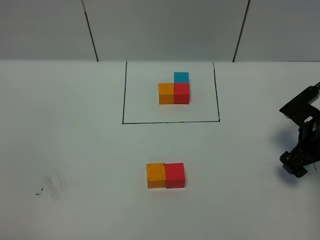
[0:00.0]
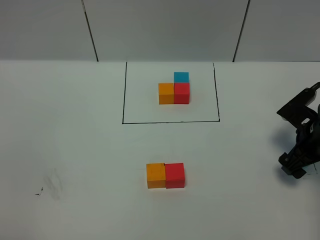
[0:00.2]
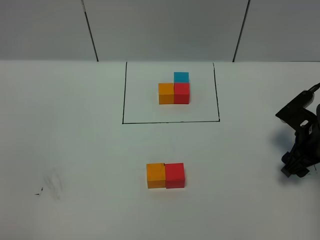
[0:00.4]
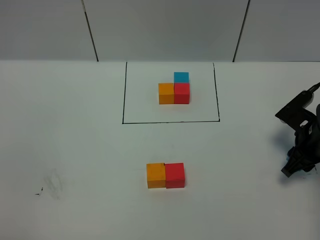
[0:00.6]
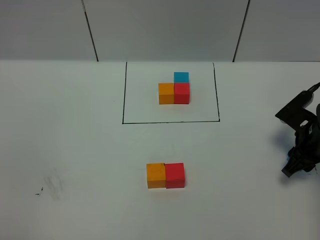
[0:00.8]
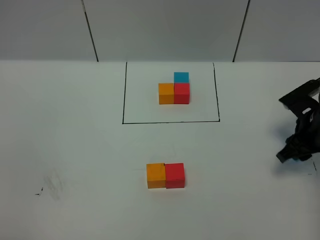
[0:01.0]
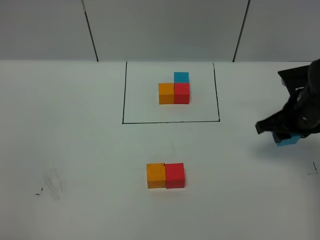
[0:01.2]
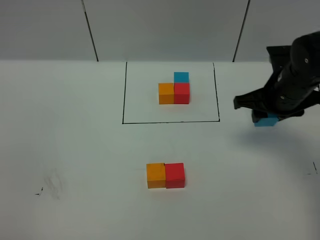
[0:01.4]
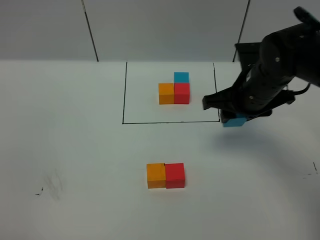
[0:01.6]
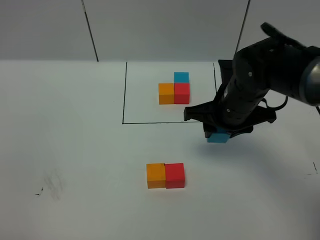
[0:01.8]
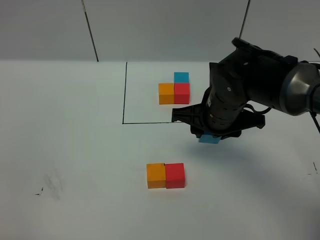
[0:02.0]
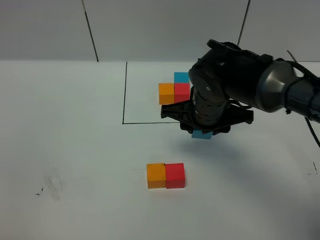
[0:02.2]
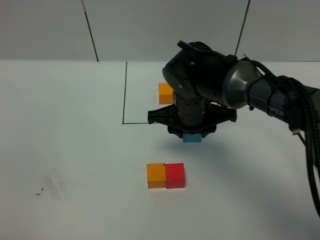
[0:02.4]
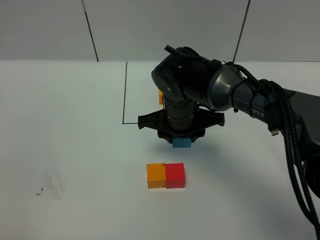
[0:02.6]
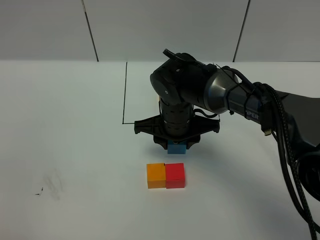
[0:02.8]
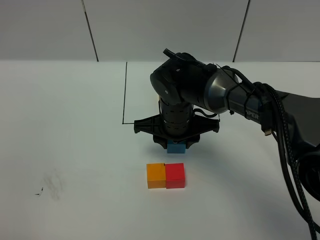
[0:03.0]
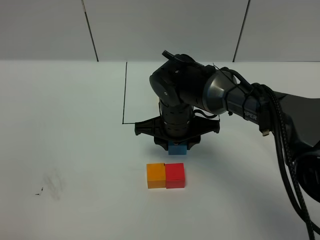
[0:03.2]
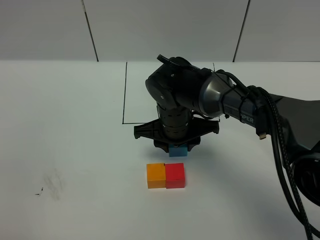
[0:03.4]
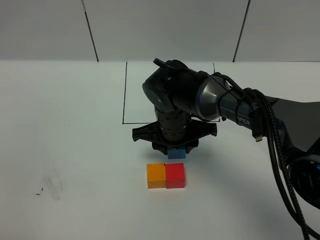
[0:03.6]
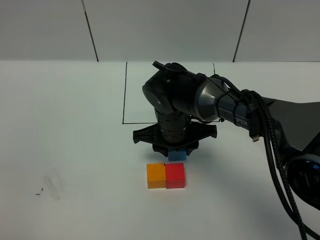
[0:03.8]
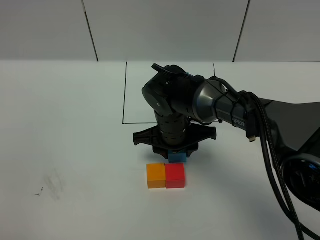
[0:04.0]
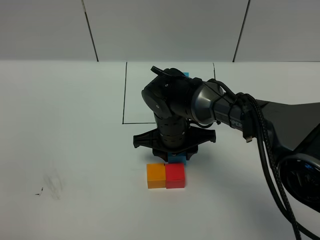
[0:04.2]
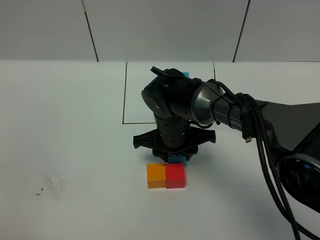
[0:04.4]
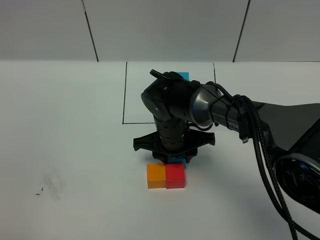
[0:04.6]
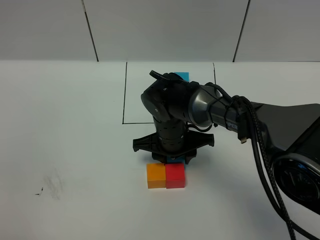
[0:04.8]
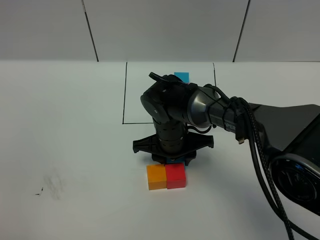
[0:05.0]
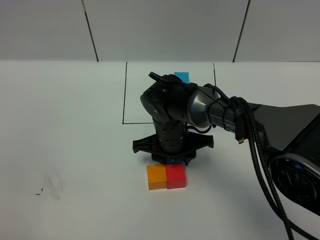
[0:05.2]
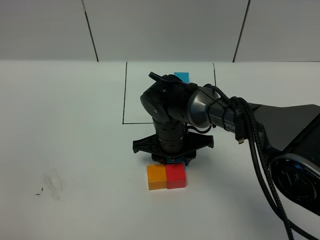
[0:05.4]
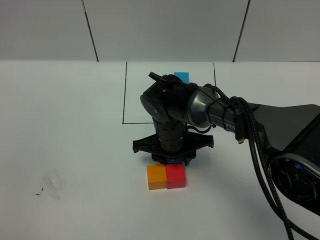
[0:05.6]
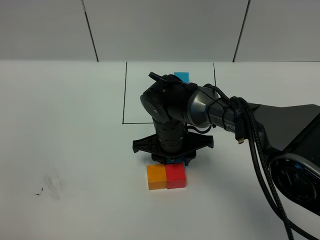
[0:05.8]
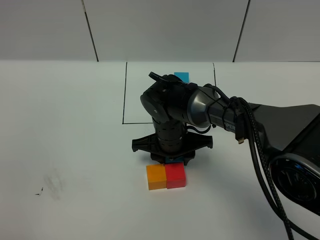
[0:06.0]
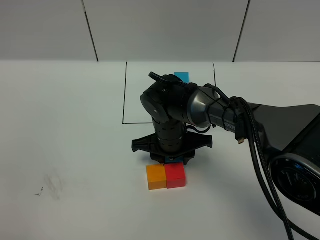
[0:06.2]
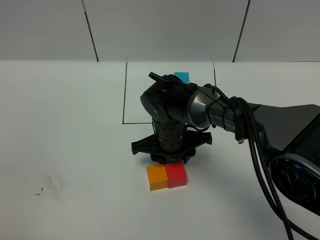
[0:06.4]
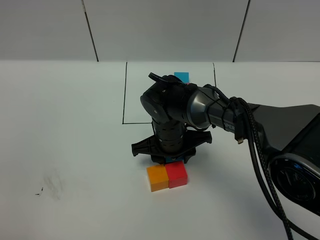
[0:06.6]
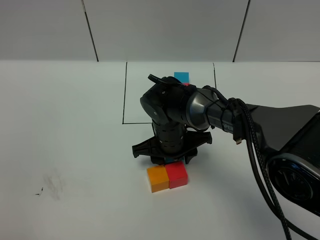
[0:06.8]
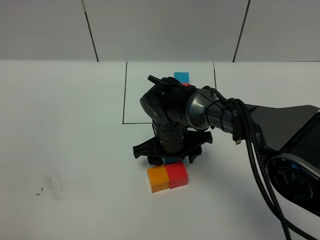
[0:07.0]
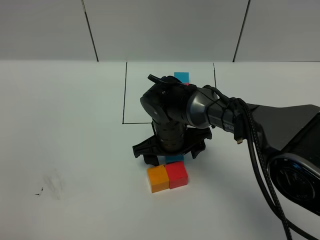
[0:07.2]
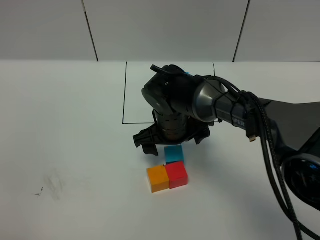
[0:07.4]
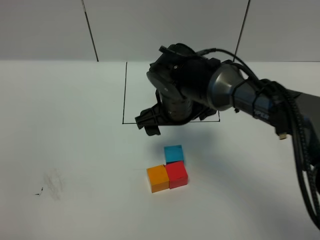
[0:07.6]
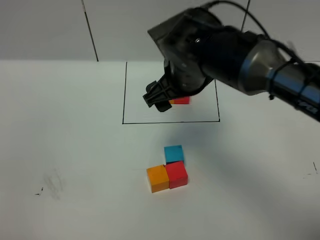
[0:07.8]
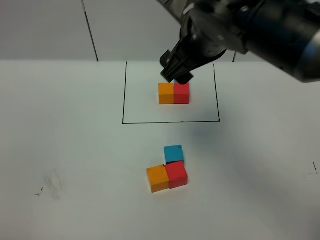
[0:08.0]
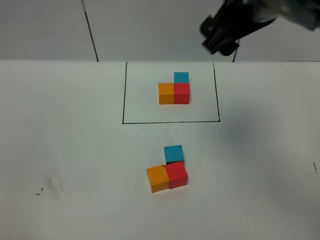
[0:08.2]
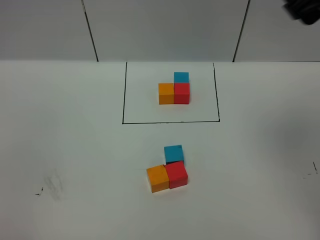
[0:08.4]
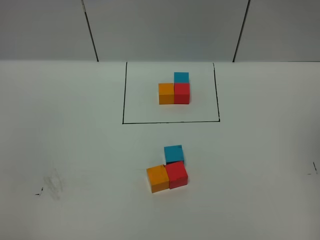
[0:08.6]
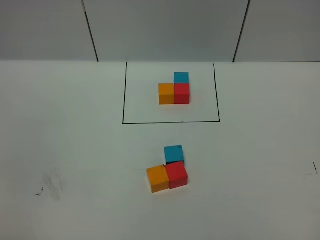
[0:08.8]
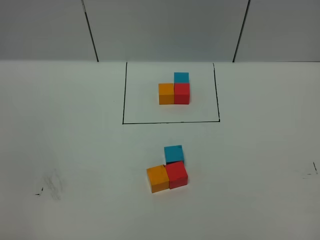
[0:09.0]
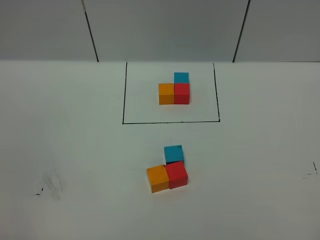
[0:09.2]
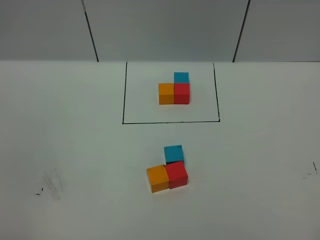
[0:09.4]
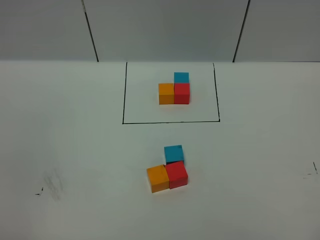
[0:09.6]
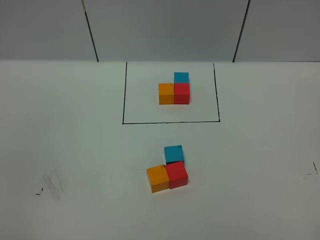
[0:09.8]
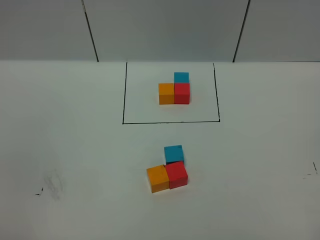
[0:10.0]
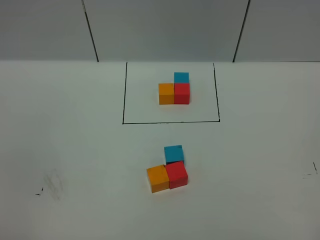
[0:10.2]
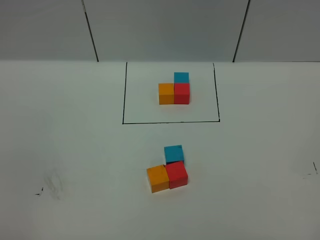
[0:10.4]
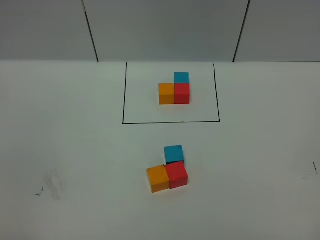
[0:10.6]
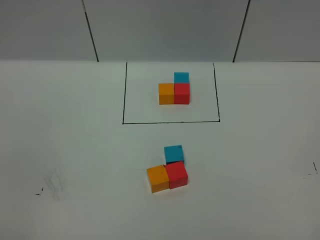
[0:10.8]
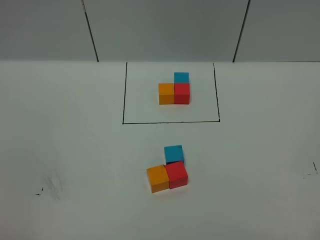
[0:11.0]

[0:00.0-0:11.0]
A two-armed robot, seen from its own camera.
Task of the whole recording: According to the building block template in front, assemble the scattered blocks together.
Step, 0:00.0 to 0:07.8: Put the blue cube in the front of the red cube.
0:00.0 to 0:01.6: The right gripper is displaced to the left and upward by some 15 cm, and closes up.
0:01.6 to 0:03.2: The right gripper heads to the left and downward, covering approximately 15 cm.
0:03.2 to 0:04.8: There are only small adjustments of the grippers.
0:04.8 to 0:06.2: Both grippers stay about where they are.
0:06.2 to 0:07.8: The right gripper shifts approximately 15 cm upward, and opens.
0:07.8 to 0:09.4: The right gripper heads backward and to the right, covering roughly 50 cm, and closes its fingers.

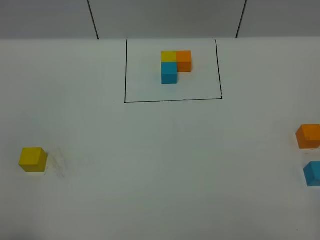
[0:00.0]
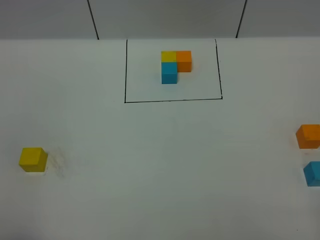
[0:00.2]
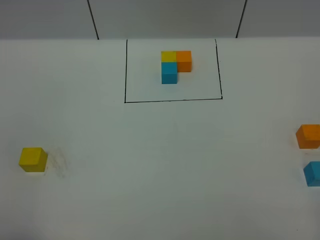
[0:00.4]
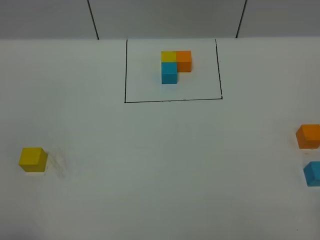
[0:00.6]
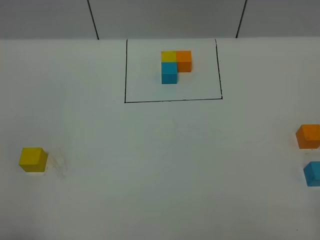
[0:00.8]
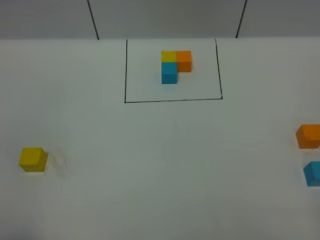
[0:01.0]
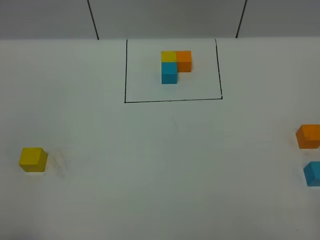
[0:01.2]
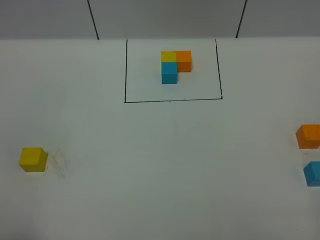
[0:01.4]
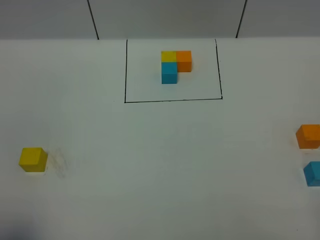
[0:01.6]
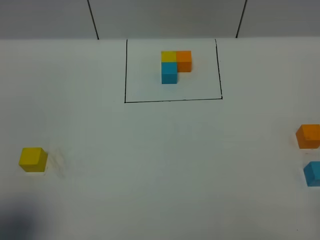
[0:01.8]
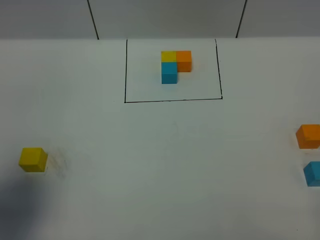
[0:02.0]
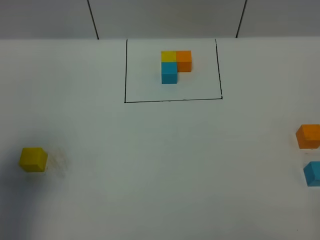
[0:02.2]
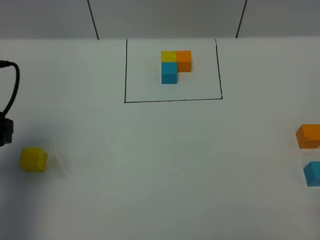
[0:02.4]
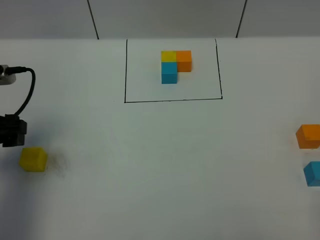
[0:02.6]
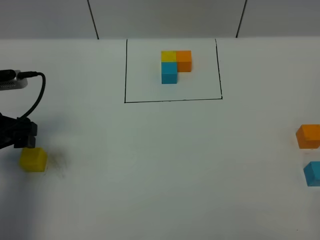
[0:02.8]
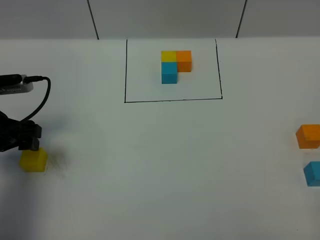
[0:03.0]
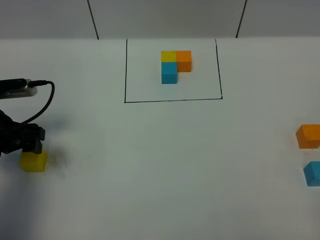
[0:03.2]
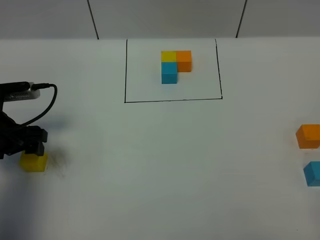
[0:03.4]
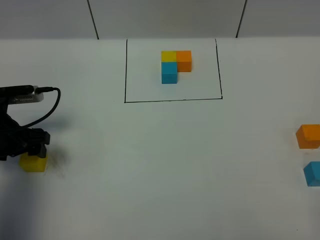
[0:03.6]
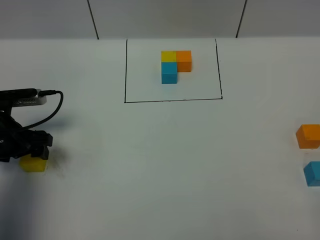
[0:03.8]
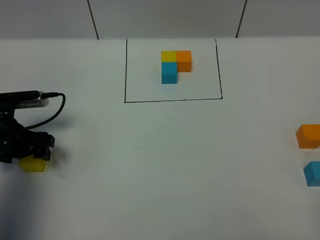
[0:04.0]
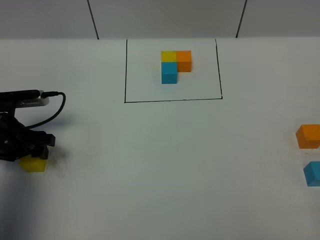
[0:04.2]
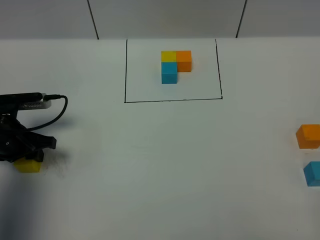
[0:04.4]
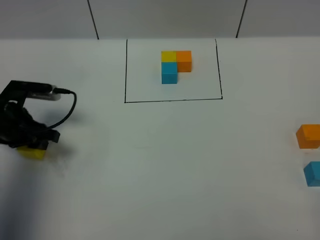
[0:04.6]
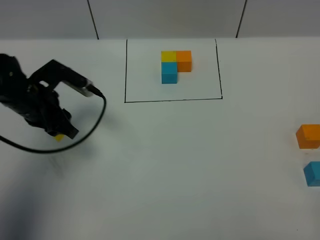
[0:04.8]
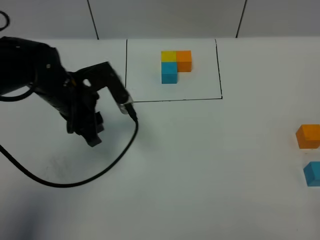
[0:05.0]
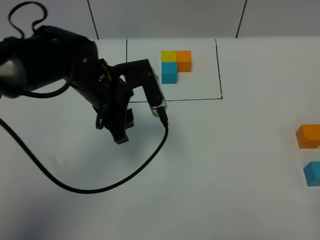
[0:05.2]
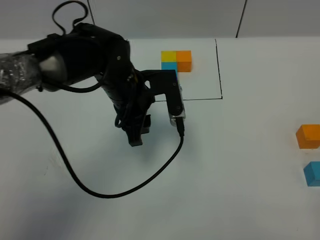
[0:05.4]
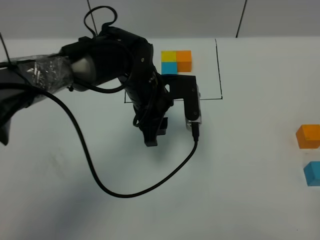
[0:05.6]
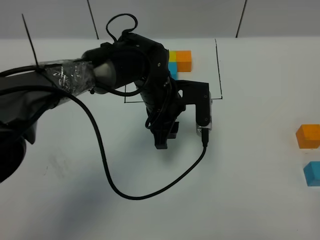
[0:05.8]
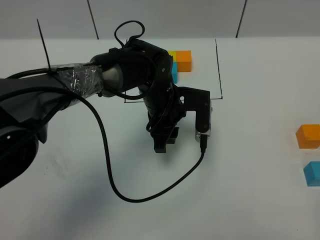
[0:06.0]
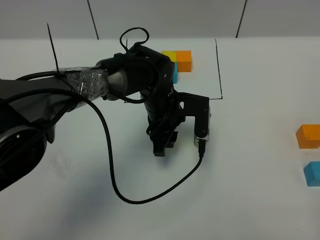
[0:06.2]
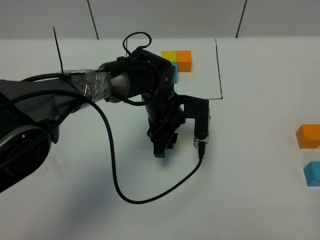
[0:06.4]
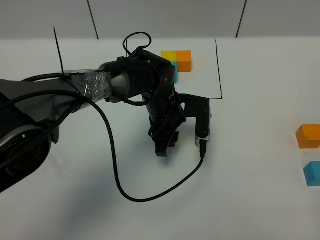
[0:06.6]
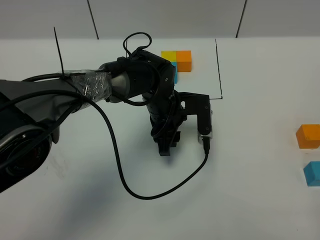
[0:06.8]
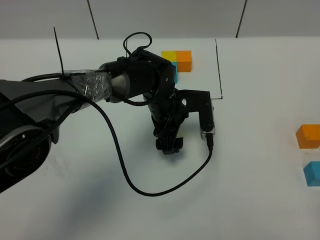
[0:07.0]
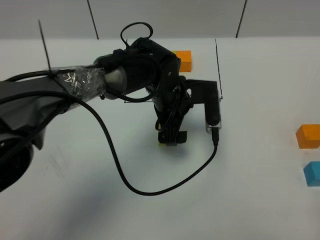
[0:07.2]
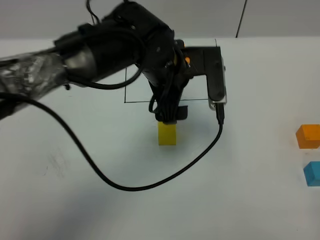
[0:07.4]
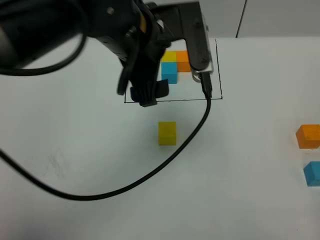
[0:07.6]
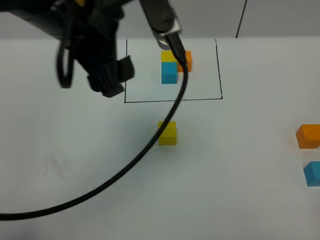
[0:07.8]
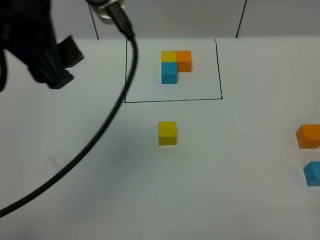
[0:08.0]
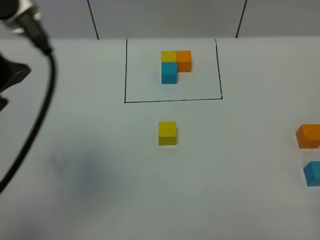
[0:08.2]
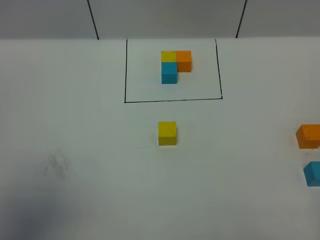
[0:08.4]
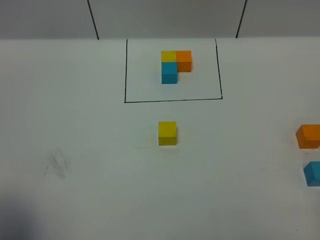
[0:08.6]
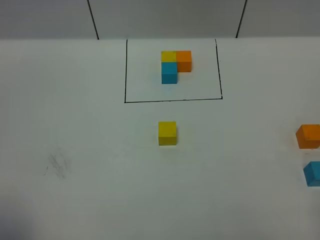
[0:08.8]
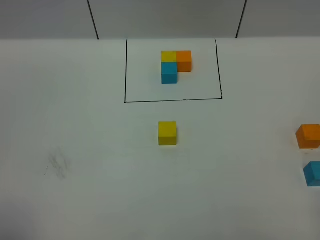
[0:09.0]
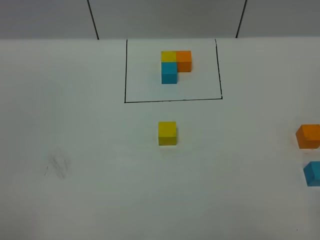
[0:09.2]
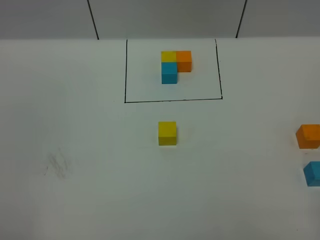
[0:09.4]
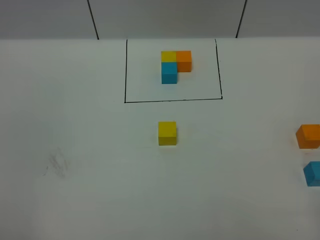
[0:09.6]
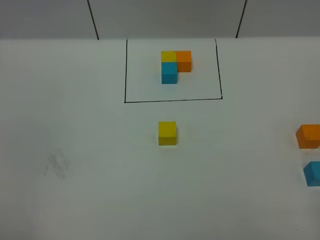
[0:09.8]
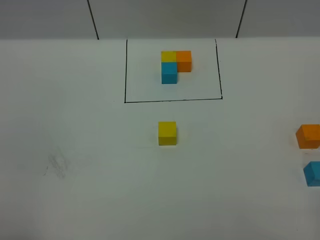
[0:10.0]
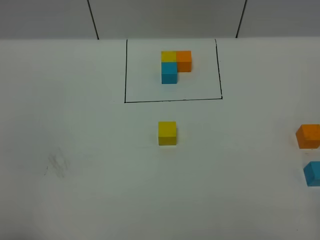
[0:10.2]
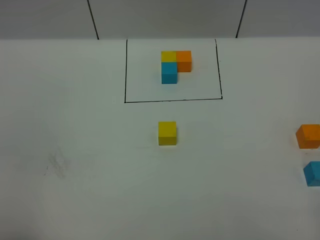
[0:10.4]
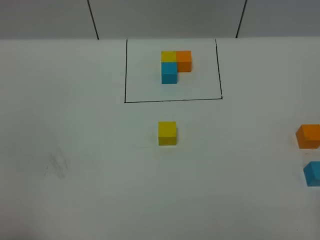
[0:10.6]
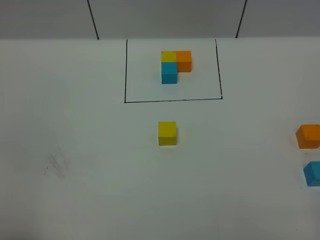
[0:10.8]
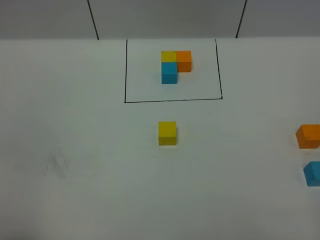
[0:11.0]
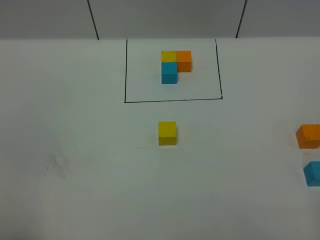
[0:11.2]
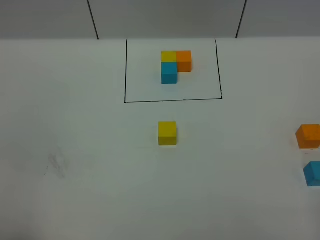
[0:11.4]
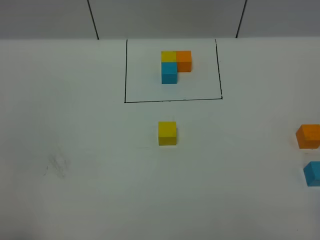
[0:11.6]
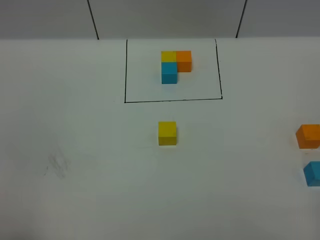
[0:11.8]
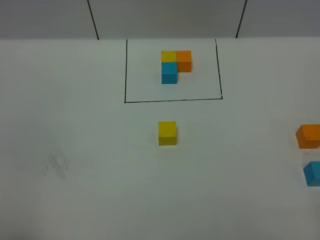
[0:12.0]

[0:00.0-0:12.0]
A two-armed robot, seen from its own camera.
Task of the whole recording: According to the building block template in front, assemble the scattered blocks together.
Step, 0:02.4 to 0:07.2: Put the yellow cube in the center of the table.
0:01.6 to 0:03.0: The left gripper goes approximately 25 cm forward and downward.
0:03.0 to 0:04.4: The left gripper shifts roughly 5 cm downward, and closes.
0:04.4 to 0:06.0: The left gripper is displaced to the right by some 30 cm.
0:06.0 to 0:07.6: The left gripper heads upward, covering roughly 20 cm, and opens.
0:07.6 to 0:09.0: The left gripper travels backward and to the left by some 40 cm.
0:10.4 to 0:12.0: Both grippers stay put.
